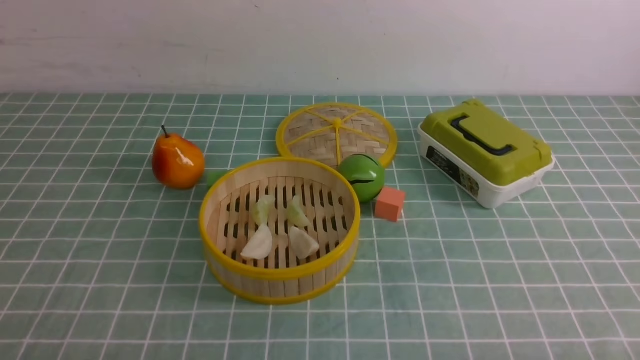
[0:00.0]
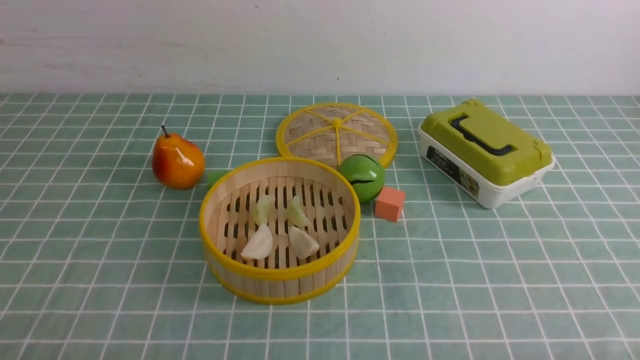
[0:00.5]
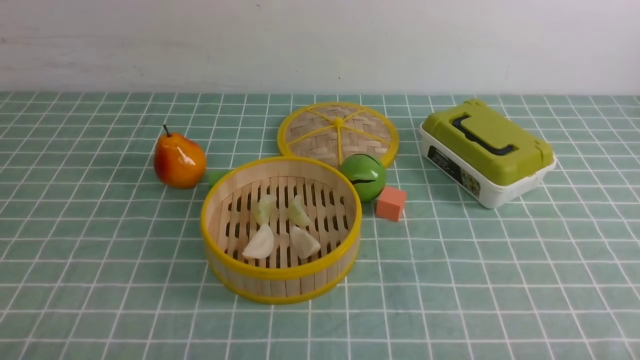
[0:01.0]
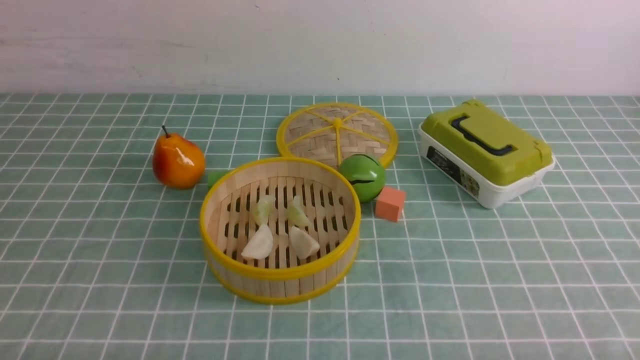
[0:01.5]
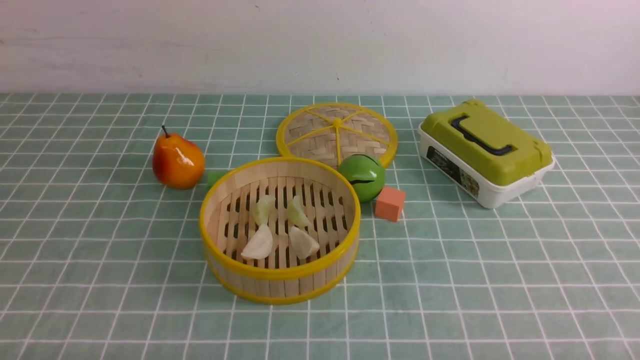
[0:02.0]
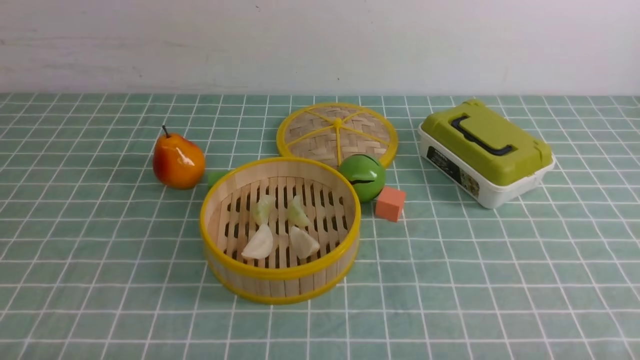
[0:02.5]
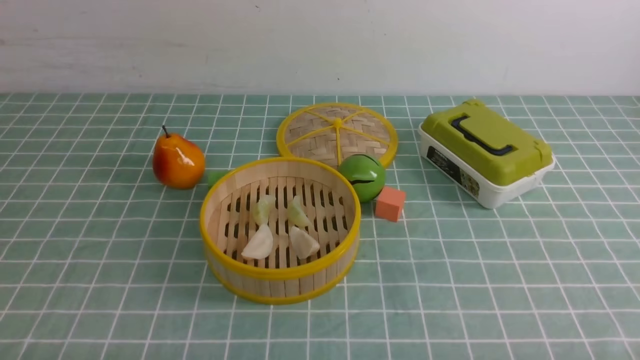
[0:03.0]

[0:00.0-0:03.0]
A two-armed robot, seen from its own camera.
Task of the whole recording: put the dumplings into the steamer on the table with the blue tablecloth.
0:01.5 to 0:03.0: Both grippers stay about where they are.

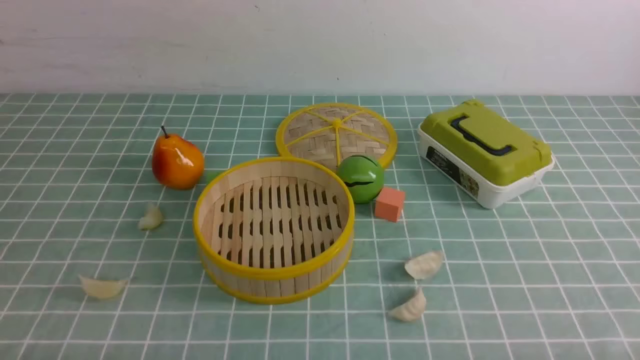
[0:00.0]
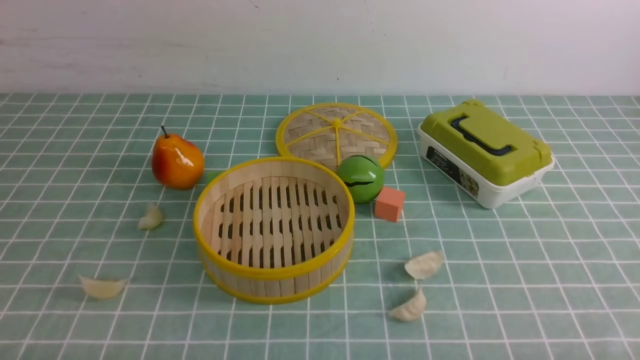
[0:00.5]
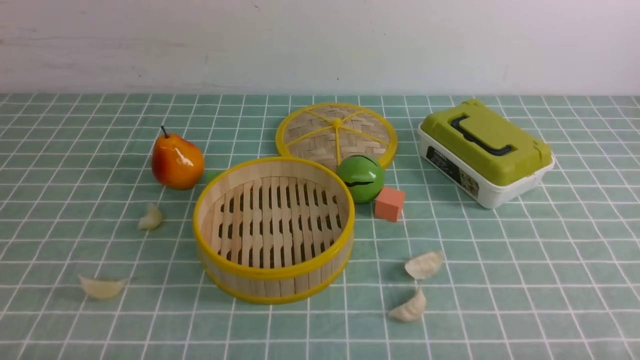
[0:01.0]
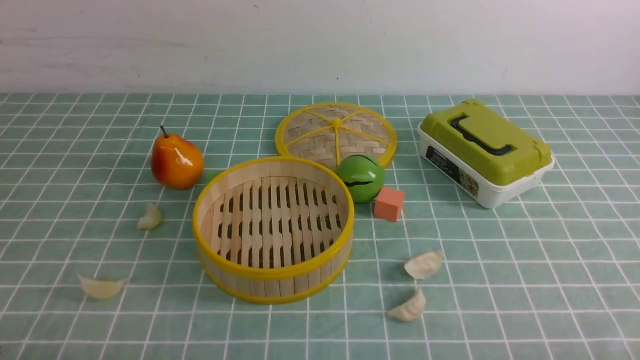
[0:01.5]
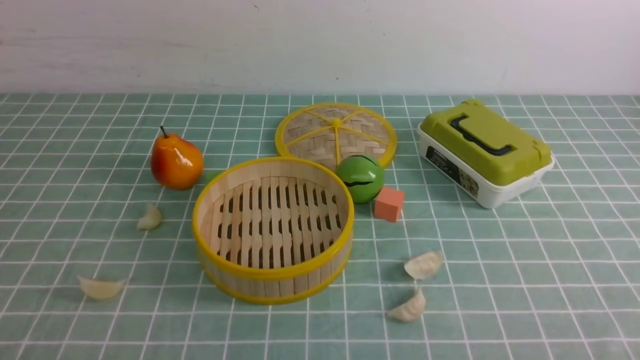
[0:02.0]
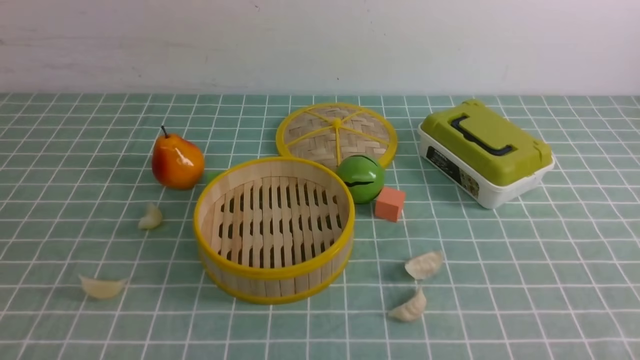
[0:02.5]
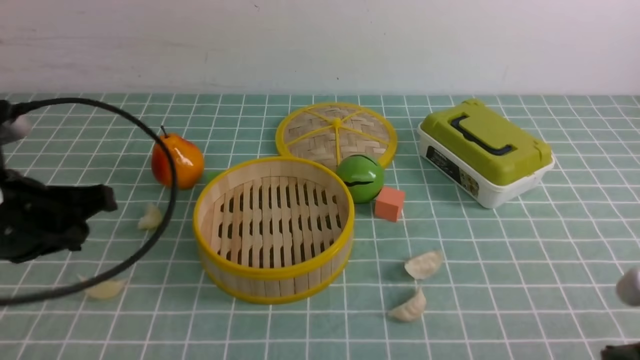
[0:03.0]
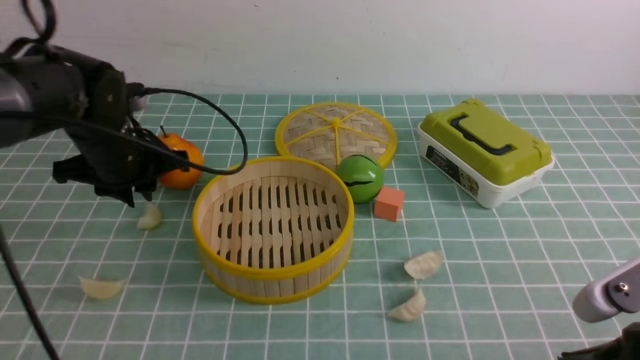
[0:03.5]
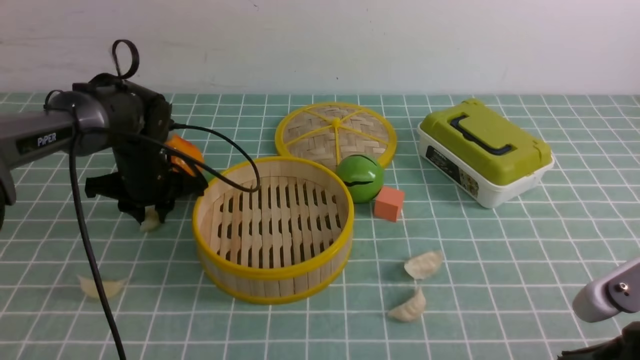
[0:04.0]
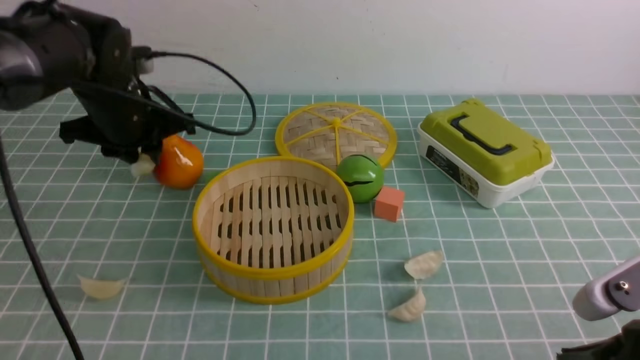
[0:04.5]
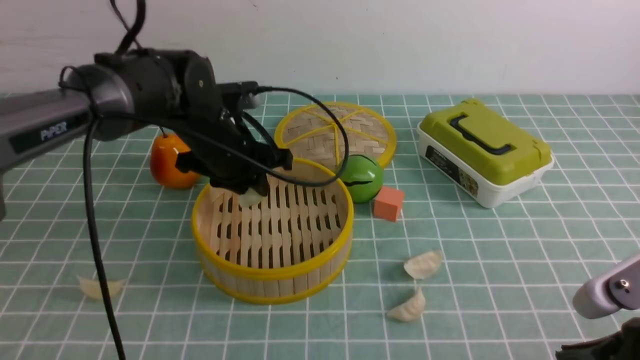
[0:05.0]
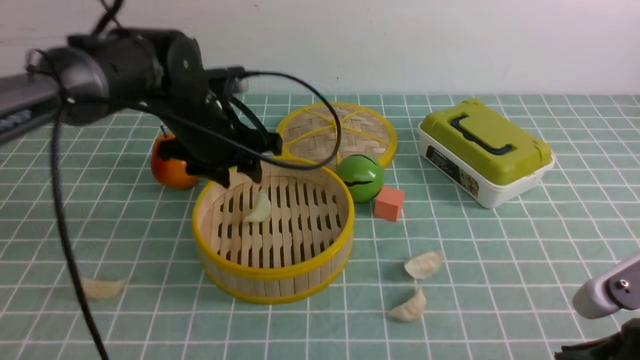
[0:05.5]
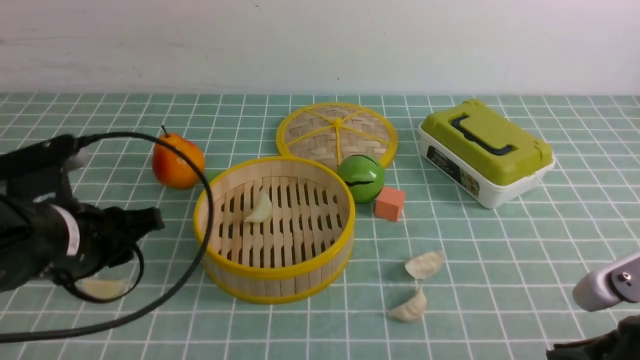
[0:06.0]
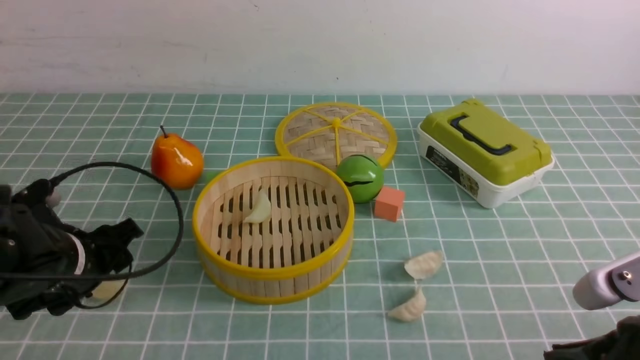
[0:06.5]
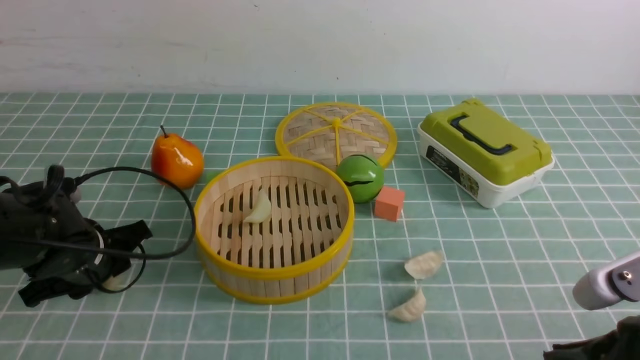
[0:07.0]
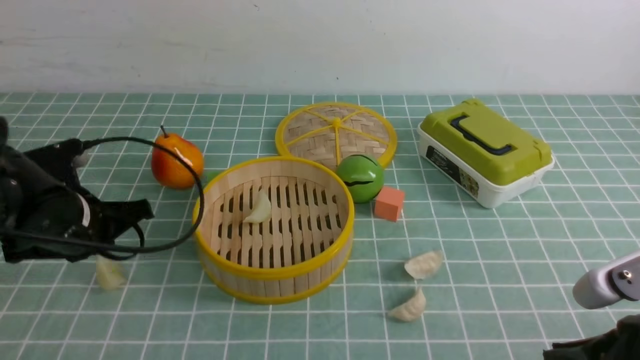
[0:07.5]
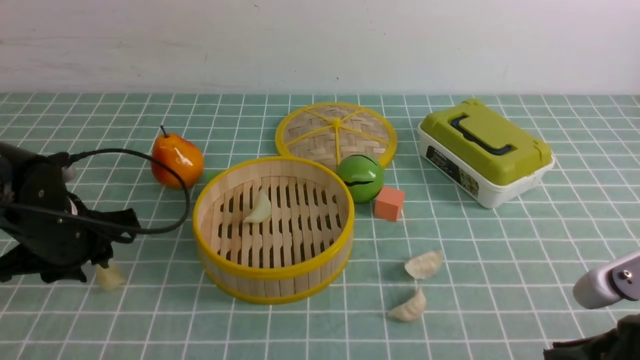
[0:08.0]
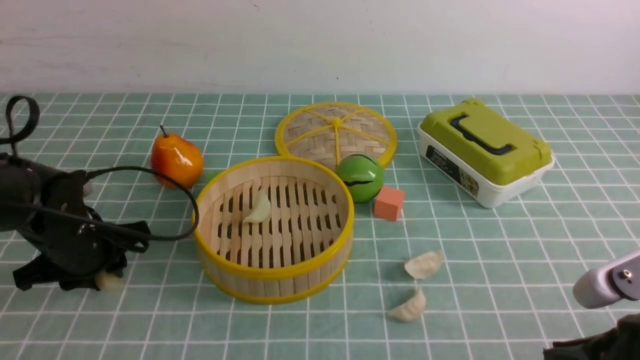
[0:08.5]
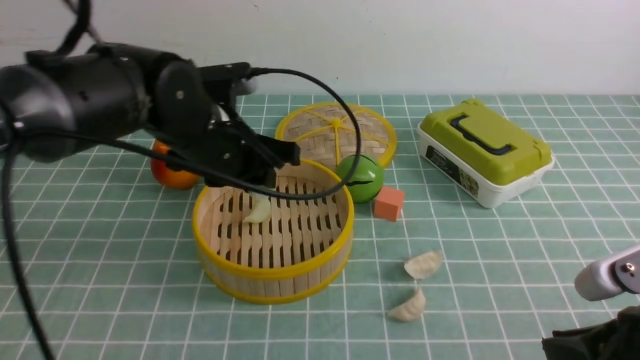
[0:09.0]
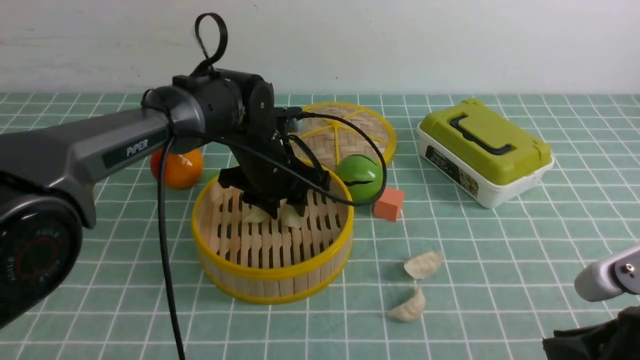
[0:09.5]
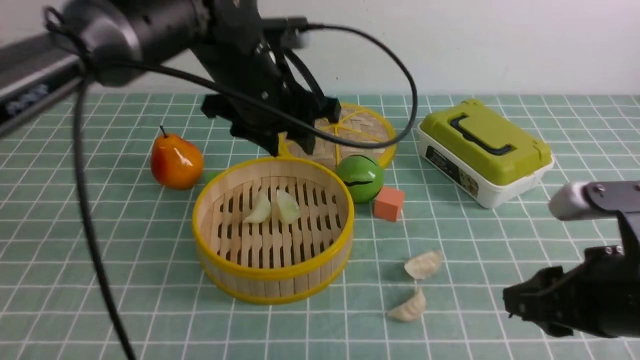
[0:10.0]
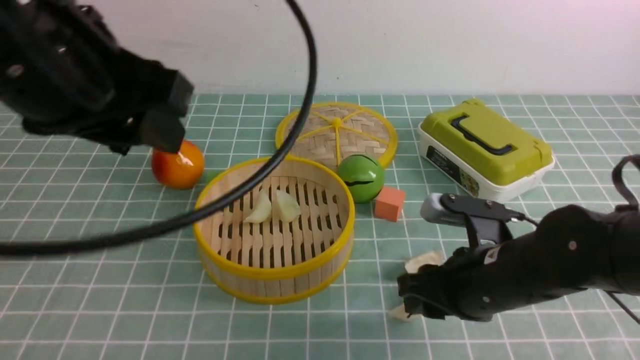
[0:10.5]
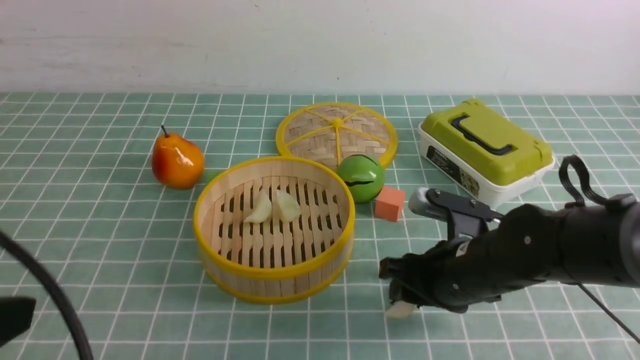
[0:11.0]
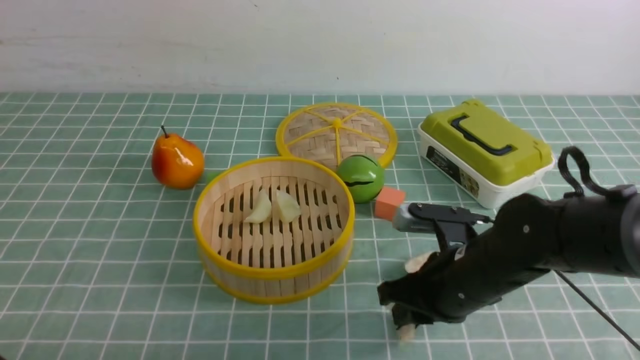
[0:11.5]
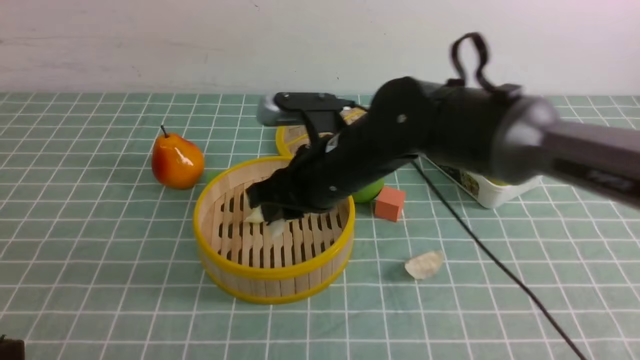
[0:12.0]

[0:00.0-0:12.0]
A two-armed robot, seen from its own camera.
Task of the whole recording: put the dumplings into the steamer on the table with the blue tablecloth.
Step, 0:00.0 to 0:04.0: use the left arm to grab a dumpling.
Step, 0:04.5 to 0:05.0: use the left arm to put the dumpling into the steamer.
Step, 0:06.0 to 0:08.0: use the left arm to grab a dumpling.
Step, 0:08.5 to 0:09.5: use the left arm to put the dumpling into the steamer.
Step, 0:10.0 to 0:11.0: use the right arm to grab a dumpling.
0:02.0 to 0:04.0: The right gripper heads forward and to the left, covering approximately 10 cm. Meanwhile the left gripper goes approximately 40 cm forward, and opens up.
0:04.0 to 0:06.0: The left gripper goes about 20 cm backward and upward.
0:06.0 to 0:08.0: The left gripper goes some 10 cm downward and forward, and closes, then opens again.
0:08.0 to 0:10.0: The left gripper heads to the right and upward, covering some 25 cm, and opens. The right gripper travels forward by about 5 cm, and opens up.
0:10.0 to 0:12.0: The left gripper heads backward and to the left, covering some 35 cm, and closes up; the right gripper heads to the left and forward, covering roughly 25 cm.

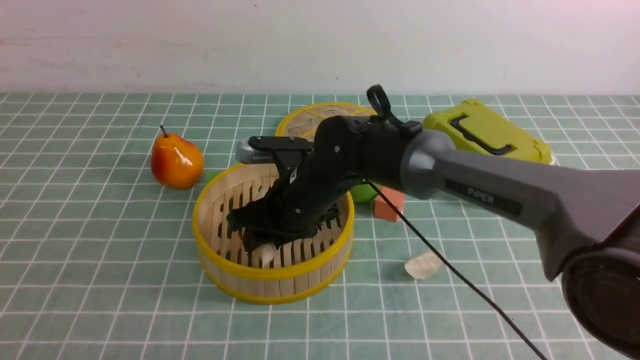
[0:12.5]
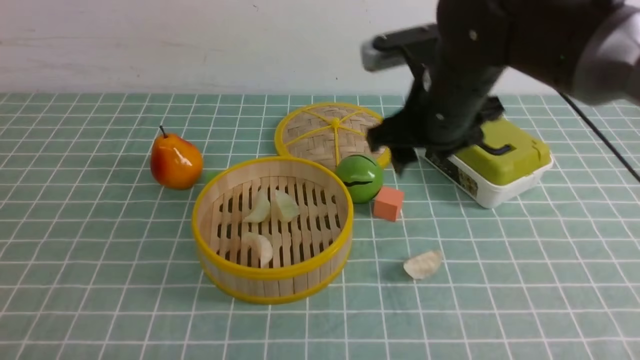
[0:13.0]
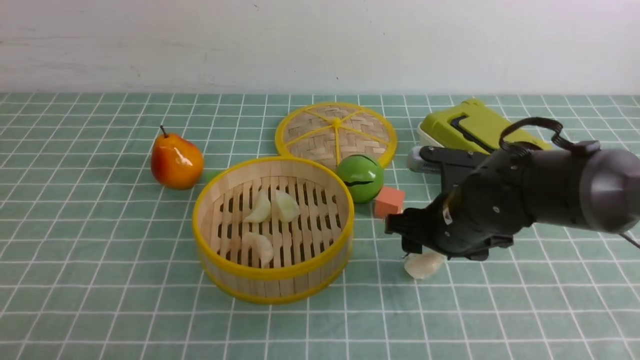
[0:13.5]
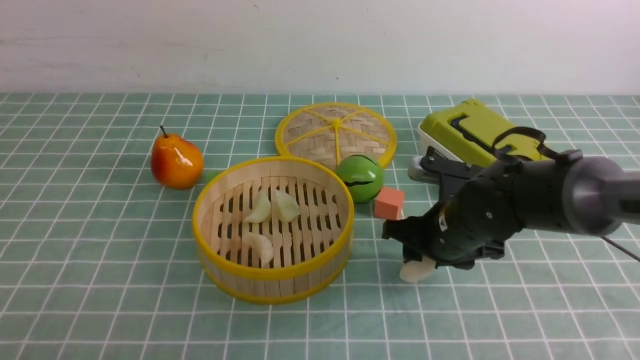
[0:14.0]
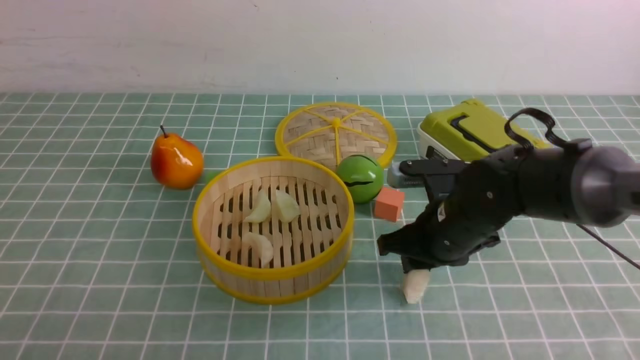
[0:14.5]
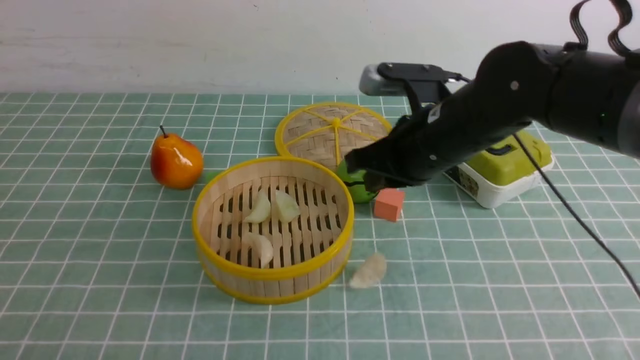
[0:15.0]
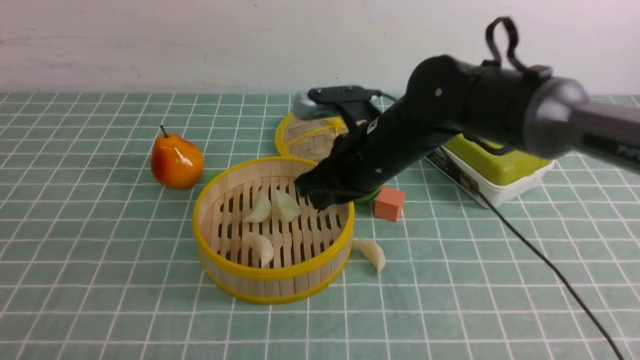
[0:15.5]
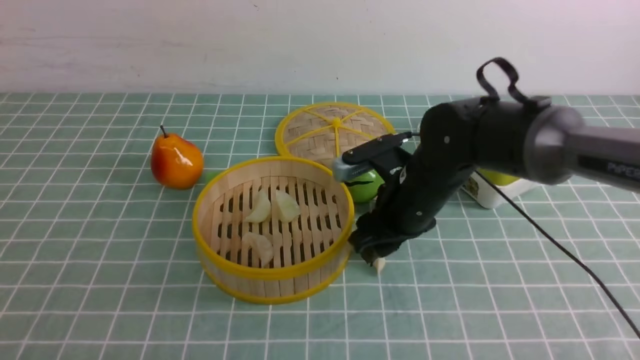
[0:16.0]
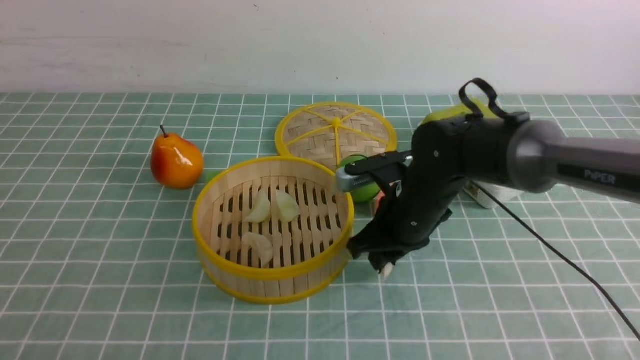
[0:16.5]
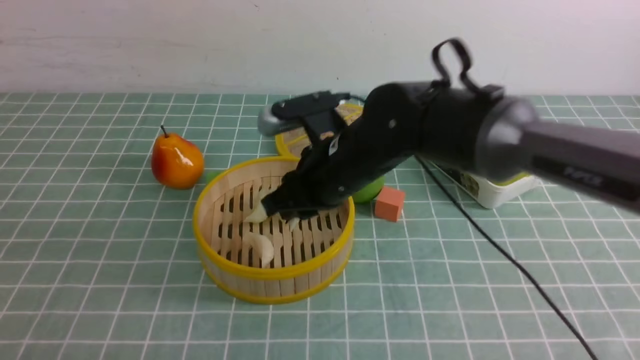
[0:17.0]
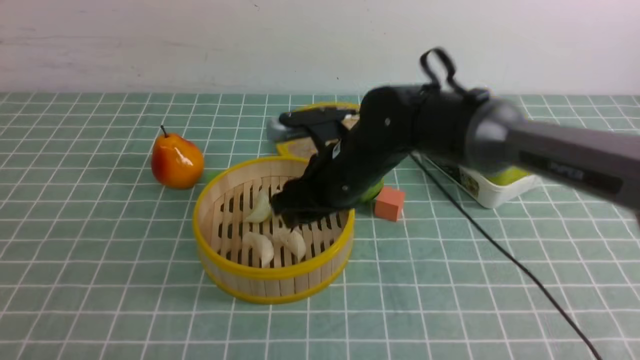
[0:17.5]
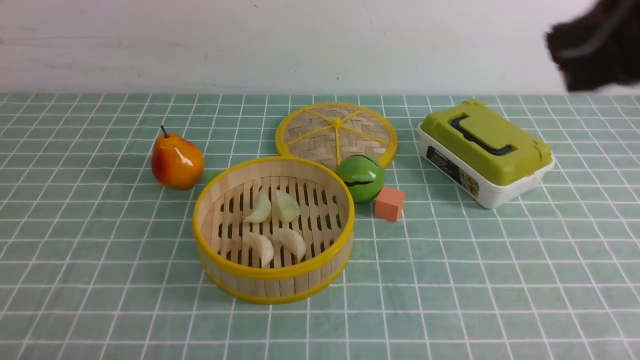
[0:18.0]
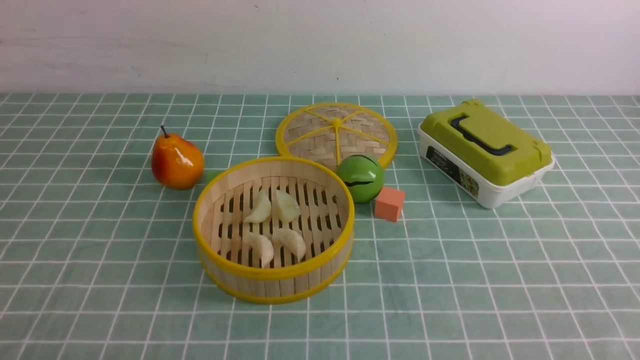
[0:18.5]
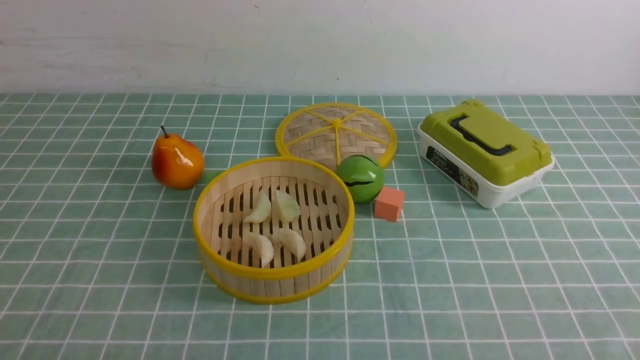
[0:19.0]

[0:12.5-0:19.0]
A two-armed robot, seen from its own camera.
Task of the whole recording: put the dumplings into the steamer on the table with the blue tablecloth.
Step, 0:13.0 to 0:16.0: use the right arm to grab a dumpling.
Step, 0:16.5 to 0:17.5: use the right arm to put the dumpling into the steamer.
0:12.5 to 0:14.5: The right gripper travels to the right by some 15 cm.
0:14.5 to 0:17.0: The right gripper travels to the left by roughly 10 cm.
0:17.0 to 0:19.0: The right gripper shifts approximately 40 cm backward and to the right, and closes up.
